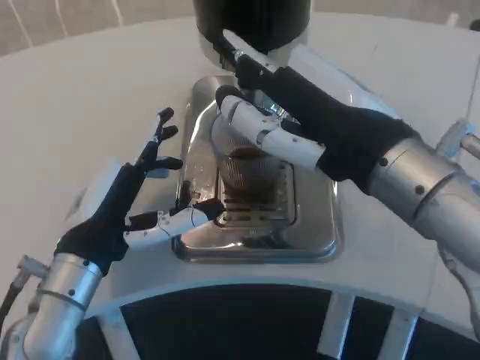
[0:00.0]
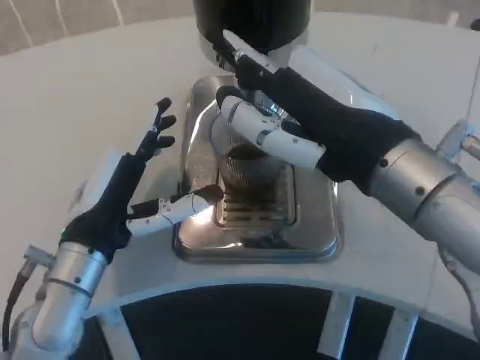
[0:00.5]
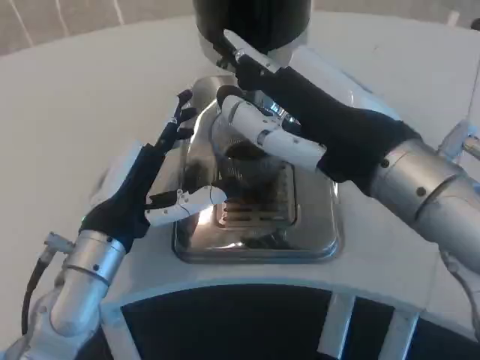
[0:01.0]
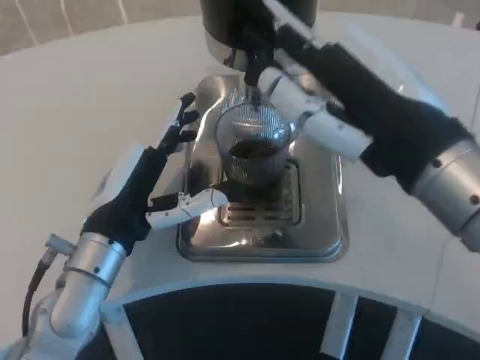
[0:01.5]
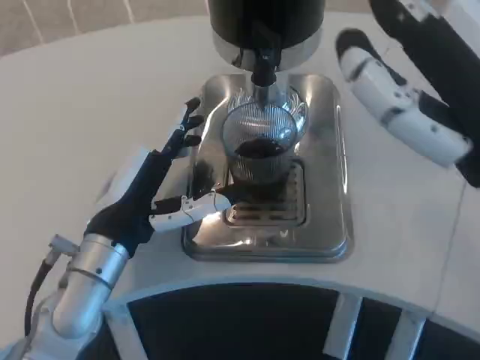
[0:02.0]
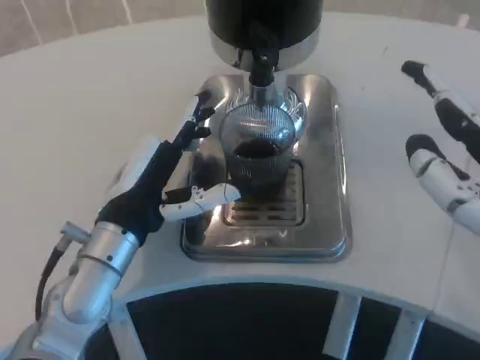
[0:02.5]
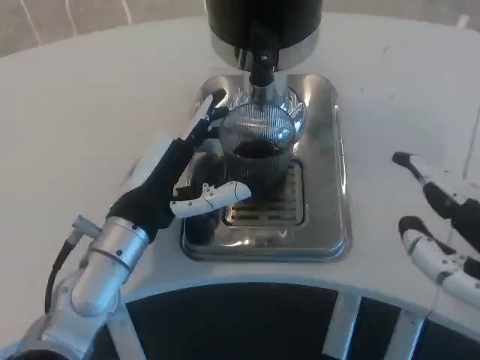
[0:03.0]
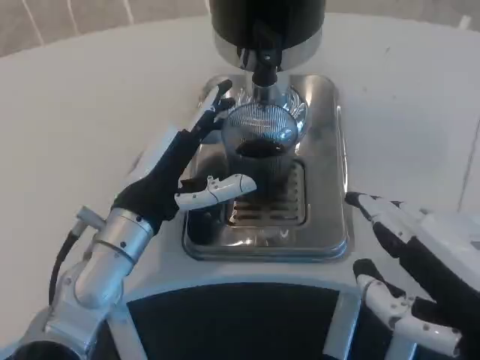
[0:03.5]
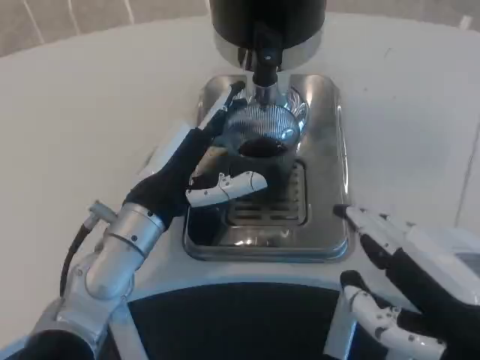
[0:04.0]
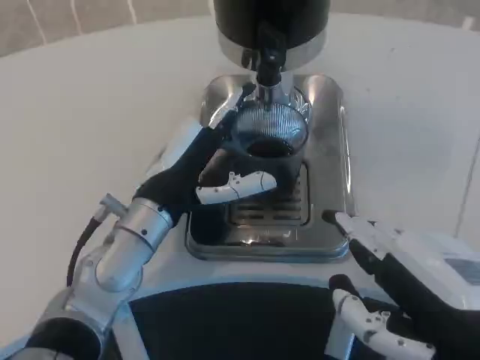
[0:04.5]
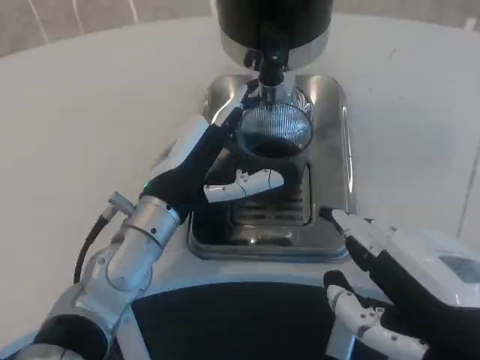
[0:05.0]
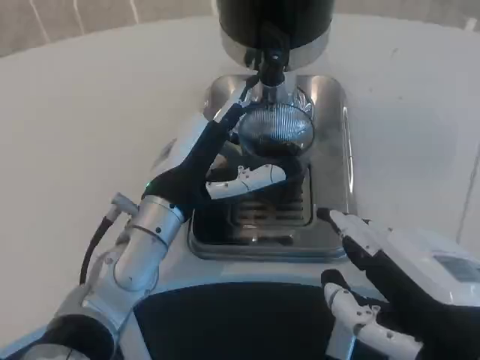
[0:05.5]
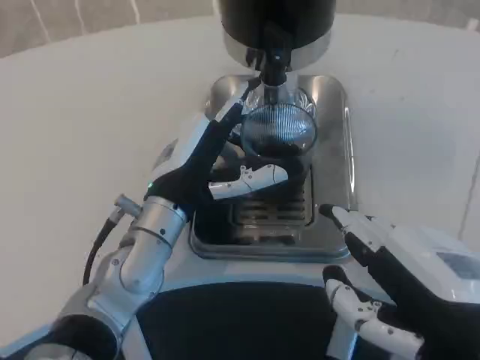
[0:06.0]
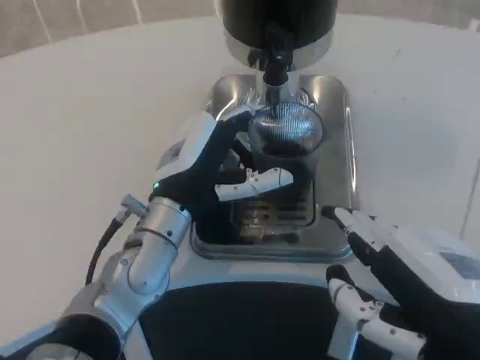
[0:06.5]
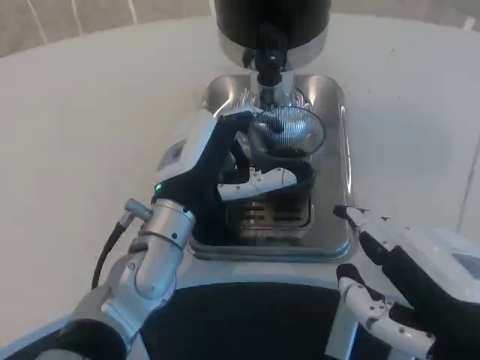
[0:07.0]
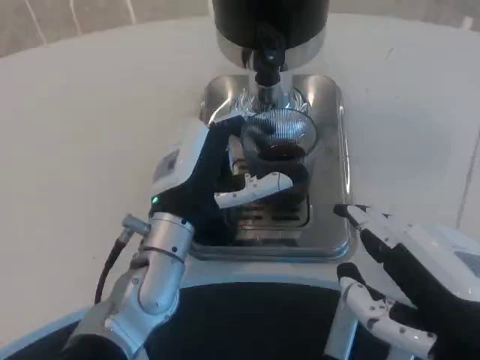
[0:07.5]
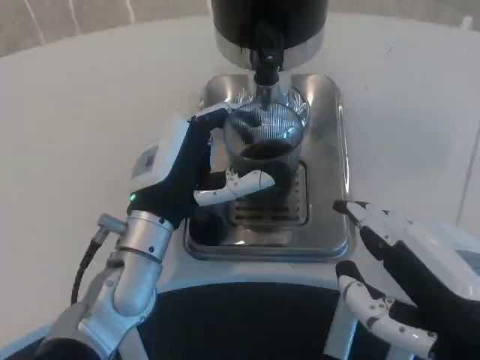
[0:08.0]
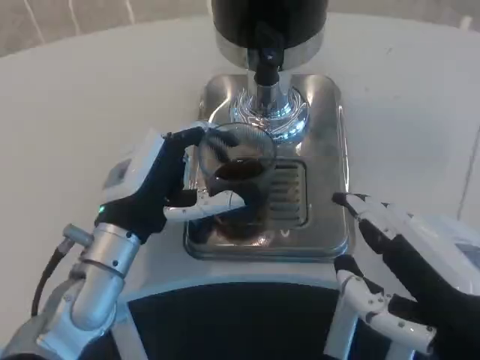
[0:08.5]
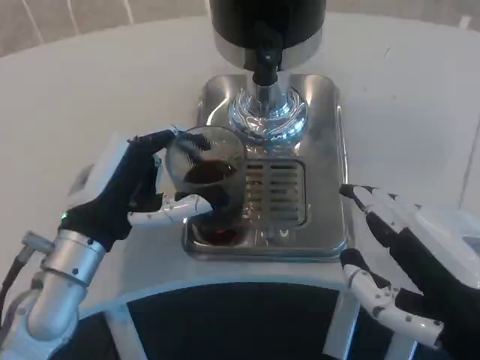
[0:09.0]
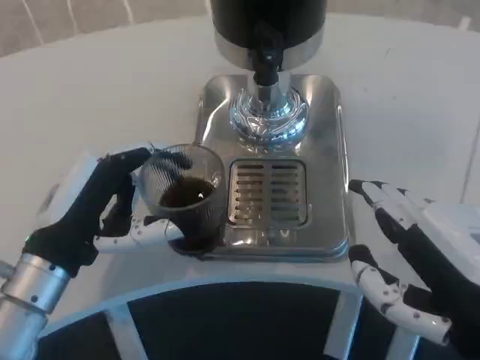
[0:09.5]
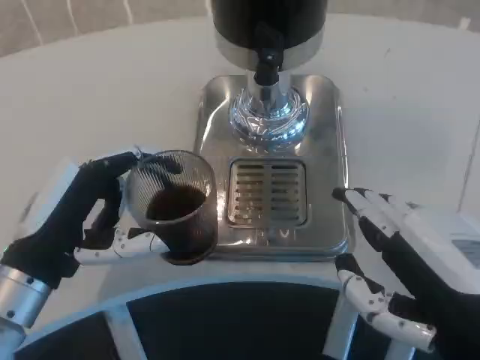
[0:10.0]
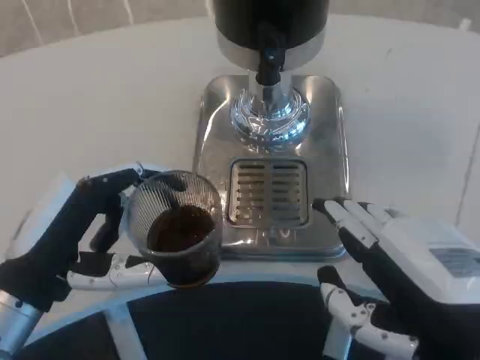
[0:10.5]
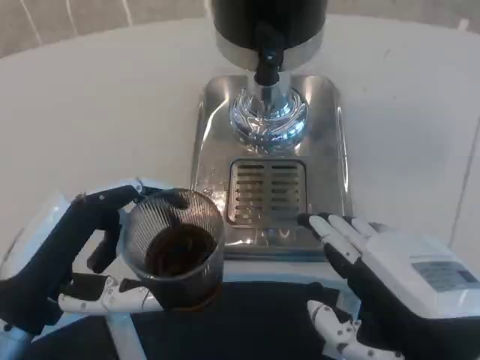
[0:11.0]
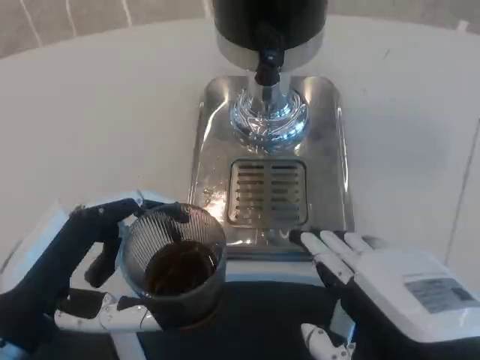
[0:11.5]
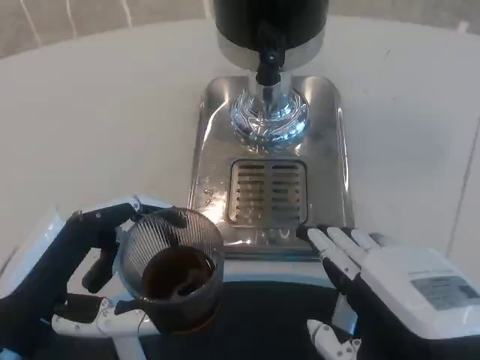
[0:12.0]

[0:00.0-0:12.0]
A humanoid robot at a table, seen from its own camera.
Task of the whole recording: Grasp the cup under the faucet to collect the drink, then remove the cup.
0:00.0 to 0:02.0: The right hand is displaced backward and to the right by some 10 cm.
0:02.0 to 0:04.0: The right hand heads downward, covering approximately 5 cm.
0:08.0 to 0:10.0: The left hand travels to the left and backward by about 15 cm.
0:10.0 to 0:12.0: The left hand shifts about 5 cm backward.

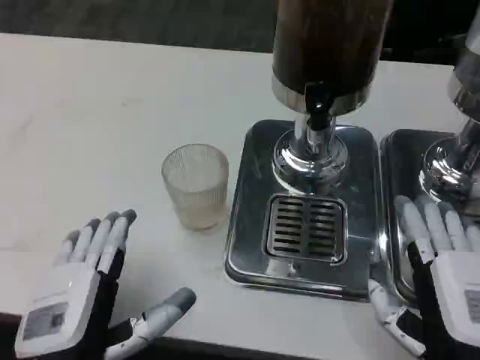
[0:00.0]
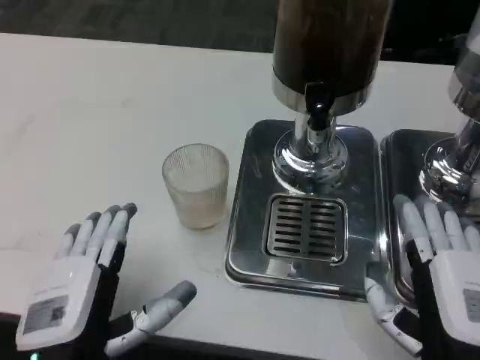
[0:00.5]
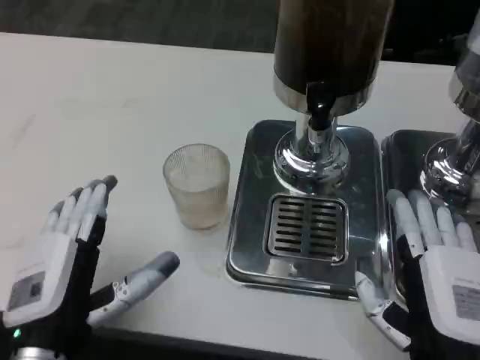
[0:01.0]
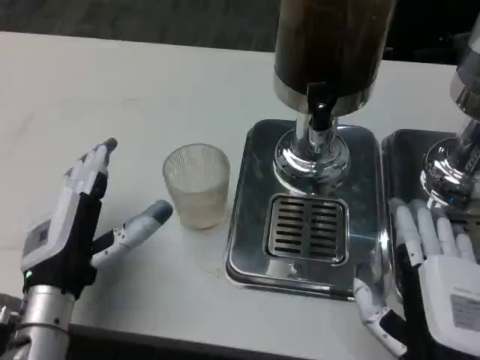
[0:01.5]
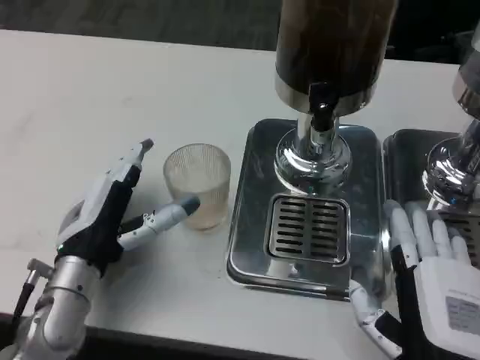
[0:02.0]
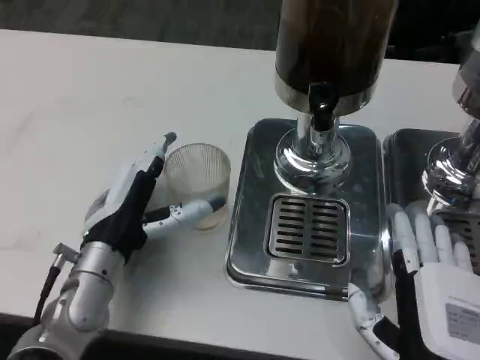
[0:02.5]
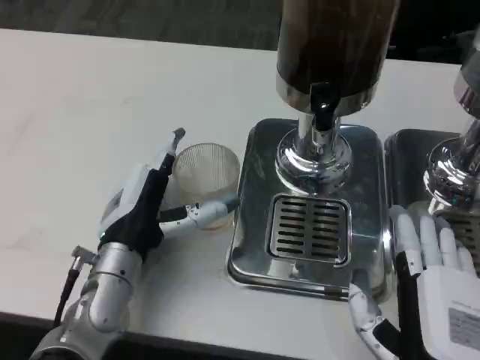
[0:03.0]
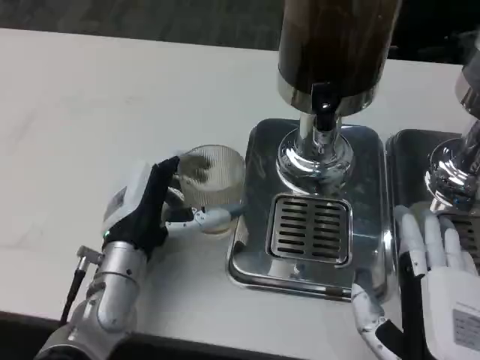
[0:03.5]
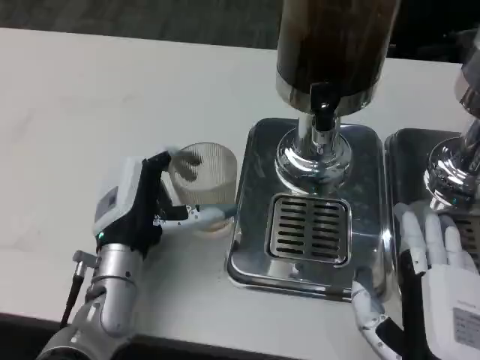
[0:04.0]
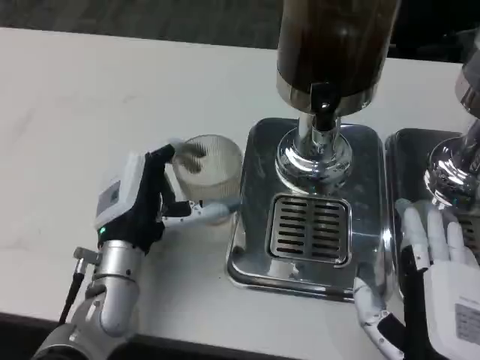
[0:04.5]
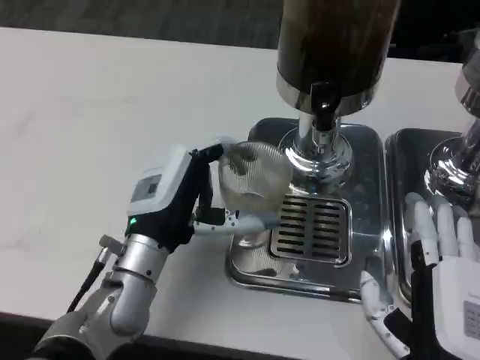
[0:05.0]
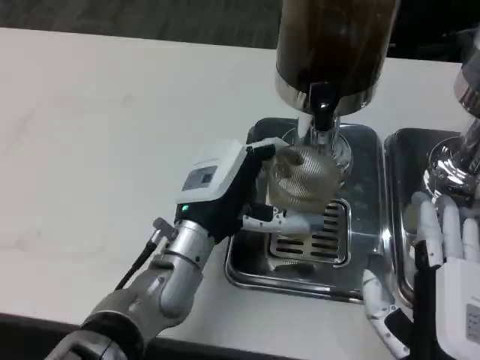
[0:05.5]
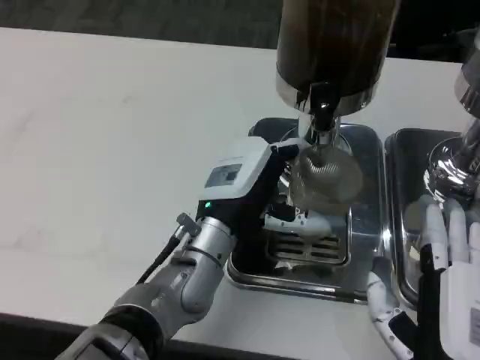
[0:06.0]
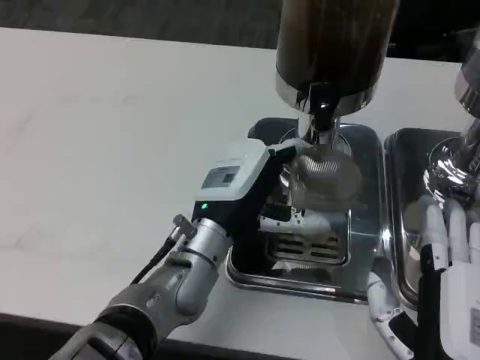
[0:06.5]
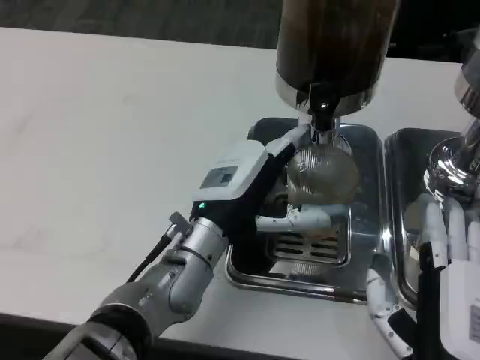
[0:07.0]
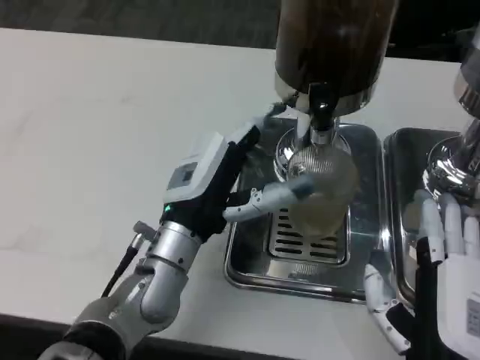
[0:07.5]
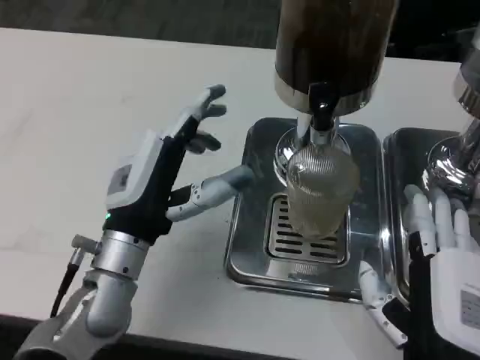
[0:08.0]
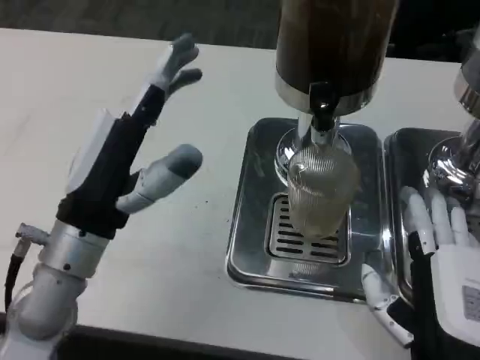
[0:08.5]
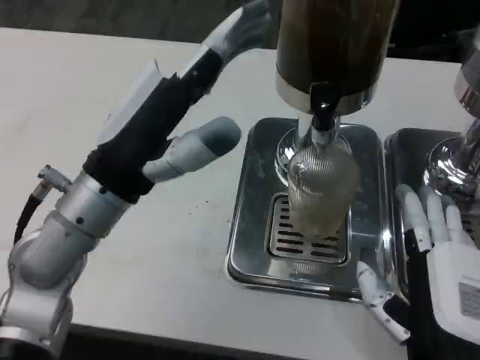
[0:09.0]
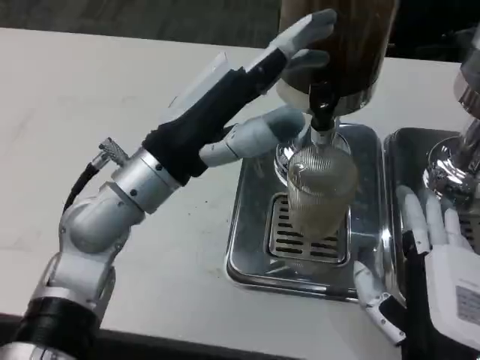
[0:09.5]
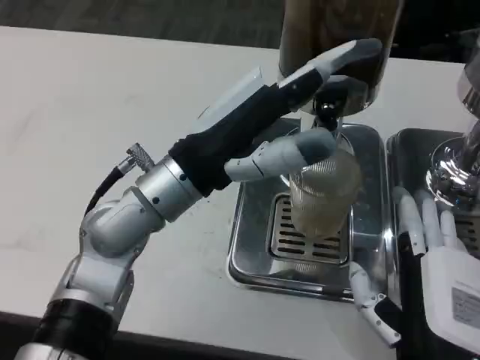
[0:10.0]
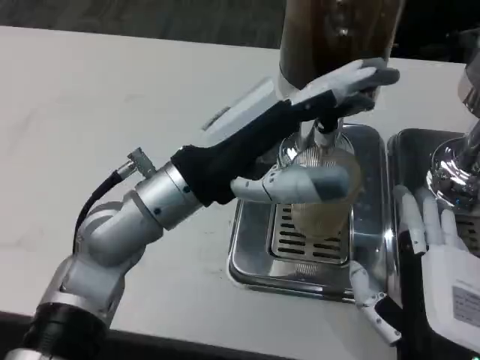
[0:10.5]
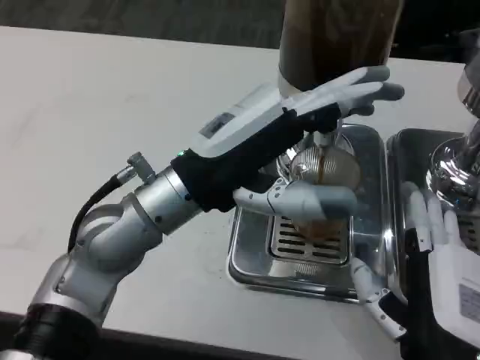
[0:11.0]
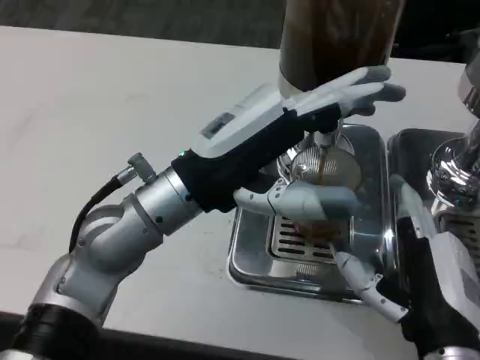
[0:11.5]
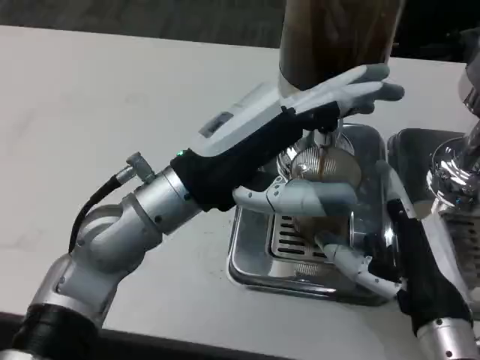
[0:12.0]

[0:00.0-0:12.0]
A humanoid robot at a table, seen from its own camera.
Task of the whole recording: Grasp the cup under the faucet to collect the drink, then remove the cup.
0:00.0 to 0:02.0: The left hand is displaced forward by roughly 15 cm.
0:02.0 to 0:04.0: The left hand travels to the right by approximately 5 cm.
0:04.0 to 0:06.0: The left hand moves to the right, approximately 10 cm.
0:06.0 to 0:08.0: The left hand moves to the left, about 10 cm.
0:08.0 to 0:10.0: The left hand moves upward, about 10 cm.
0:10.0 to 0:12.0: The right hand shifts roughly 5 cm forward.

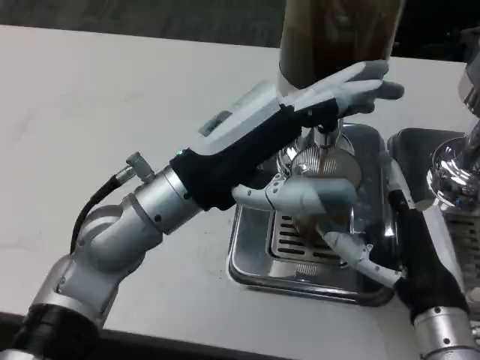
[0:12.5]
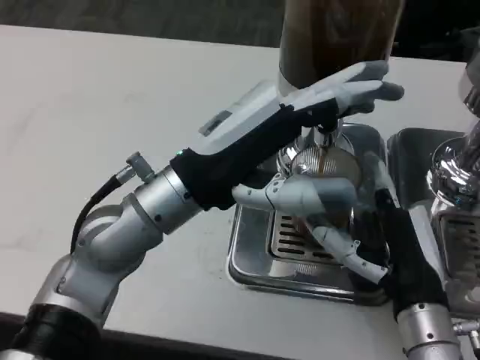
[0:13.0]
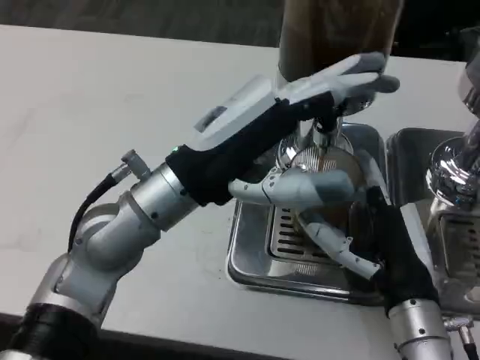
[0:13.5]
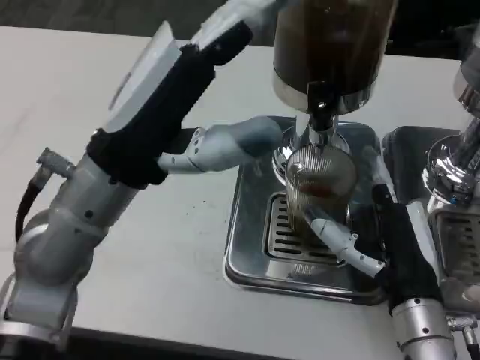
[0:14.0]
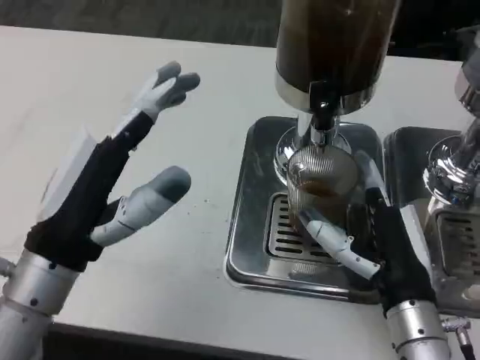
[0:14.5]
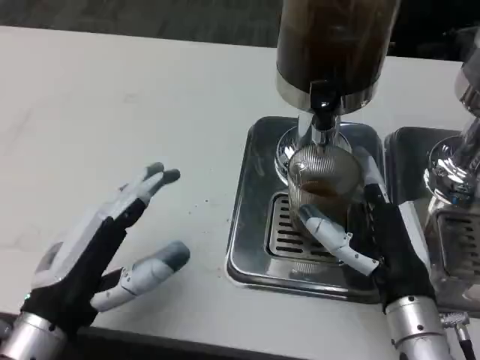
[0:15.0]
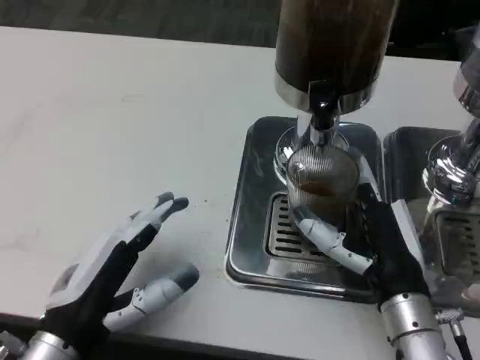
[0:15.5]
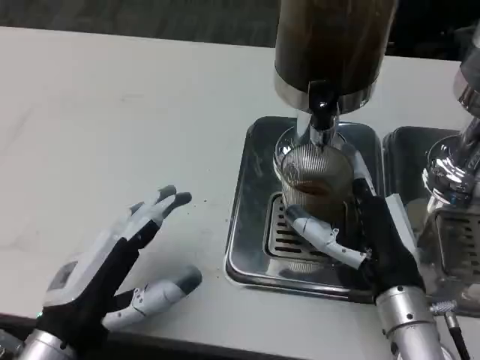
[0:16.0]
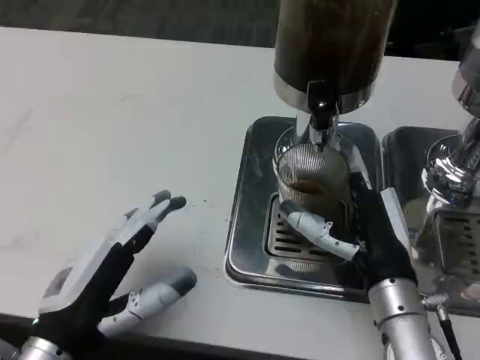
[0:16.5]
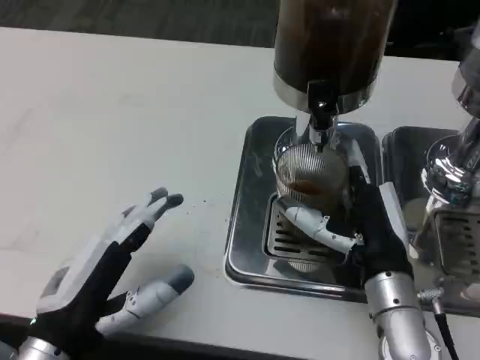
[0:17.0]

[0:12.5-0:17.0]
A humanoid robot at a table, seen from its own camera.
Task of the whole recording: Grasp the cup under the faucet to collect the drink, then remove the cup.
0:12.5 to 0:14.5: The left hand travels to the left and backward by approximately 10 cm.
0:14.5 to 0:17.0: The left hand moves downward, about 5 cm.
